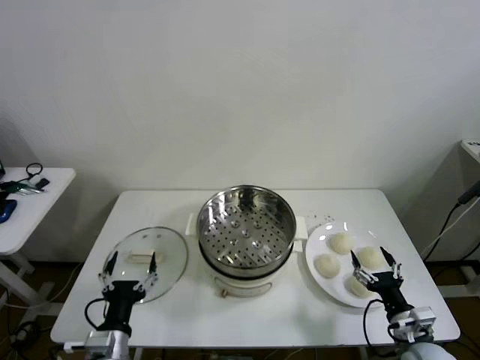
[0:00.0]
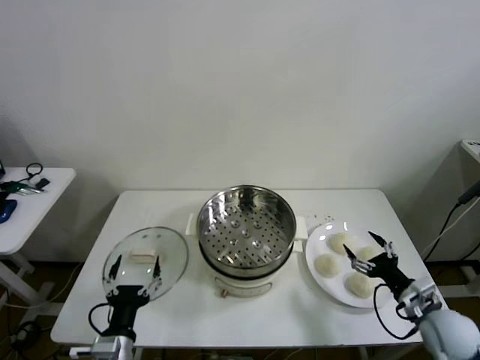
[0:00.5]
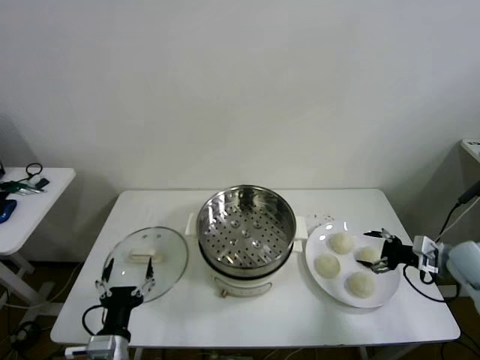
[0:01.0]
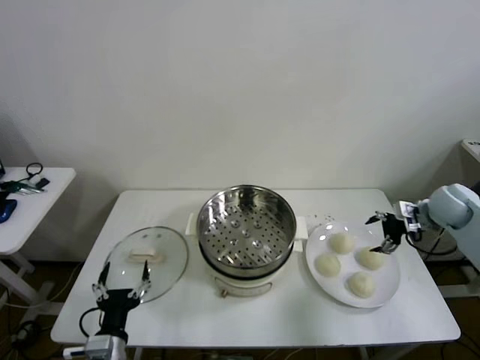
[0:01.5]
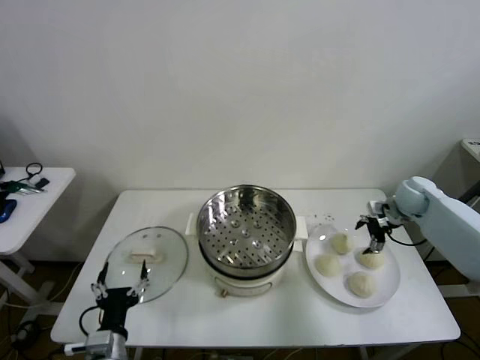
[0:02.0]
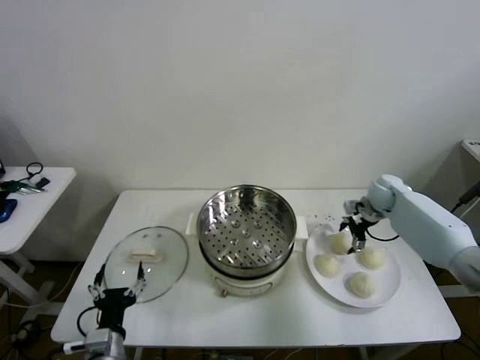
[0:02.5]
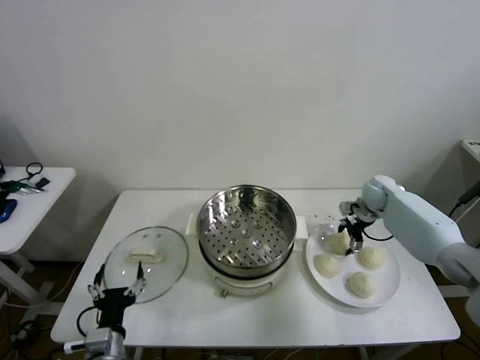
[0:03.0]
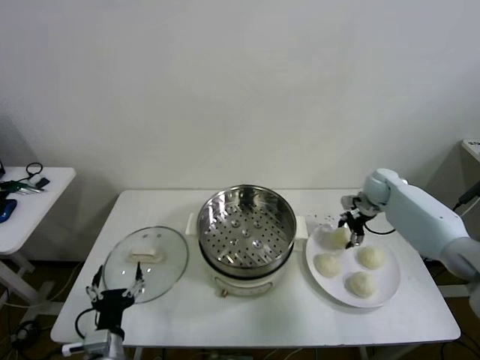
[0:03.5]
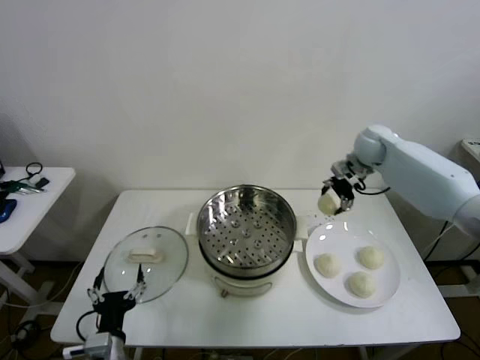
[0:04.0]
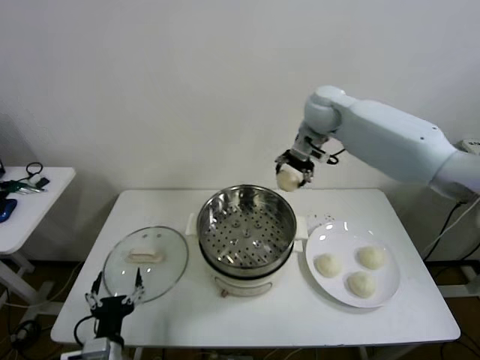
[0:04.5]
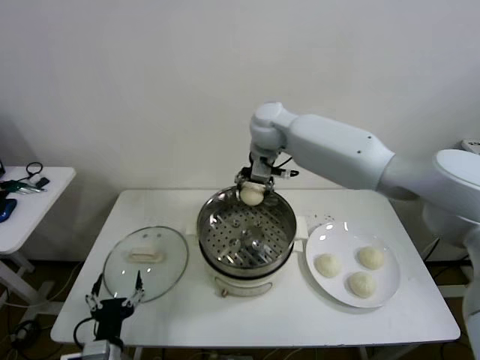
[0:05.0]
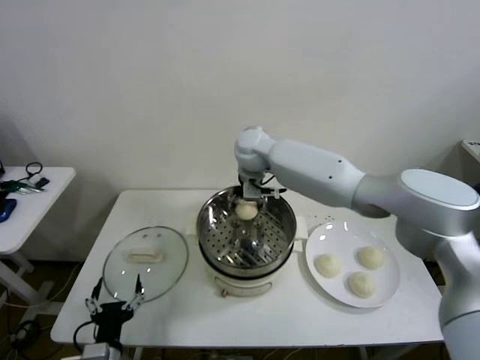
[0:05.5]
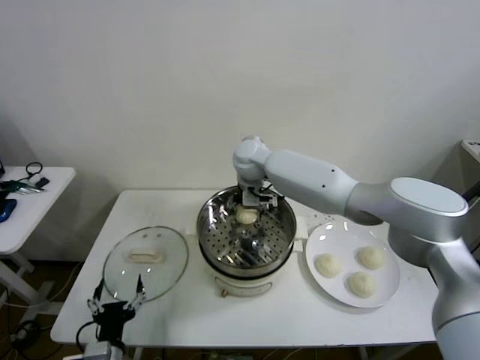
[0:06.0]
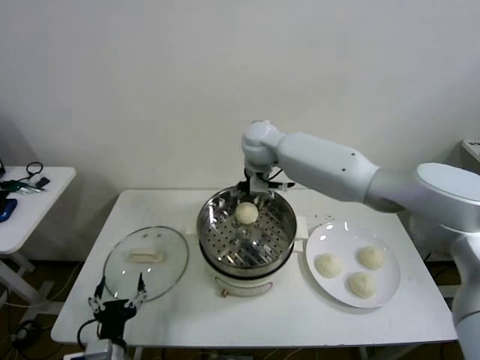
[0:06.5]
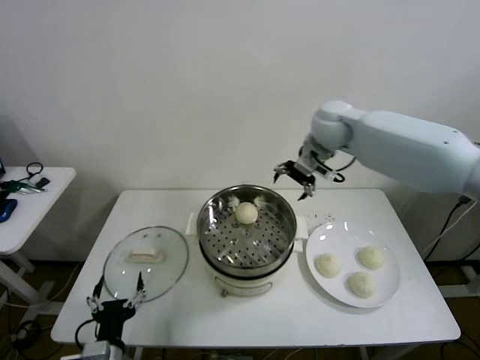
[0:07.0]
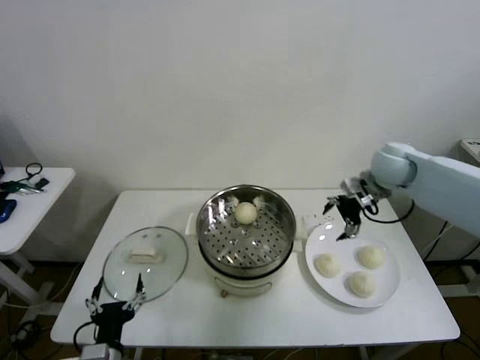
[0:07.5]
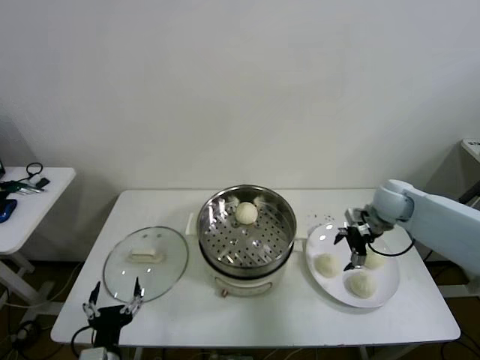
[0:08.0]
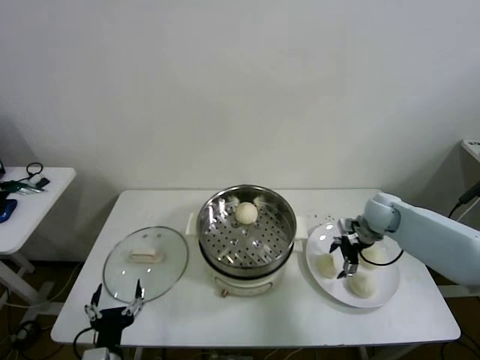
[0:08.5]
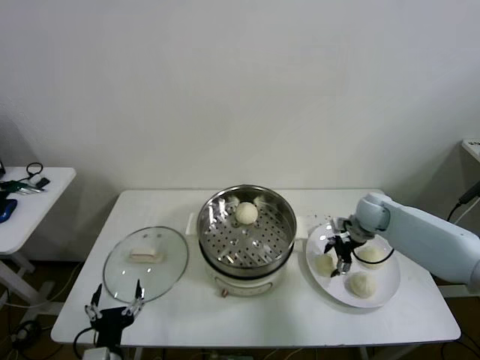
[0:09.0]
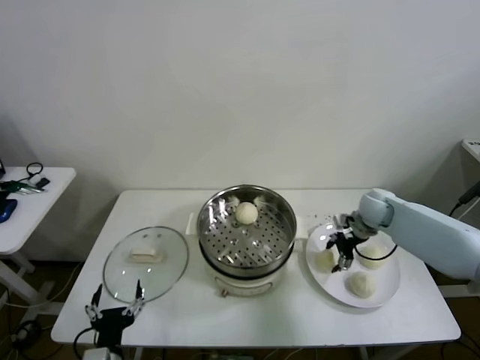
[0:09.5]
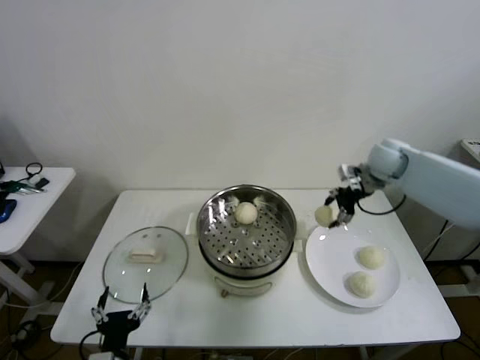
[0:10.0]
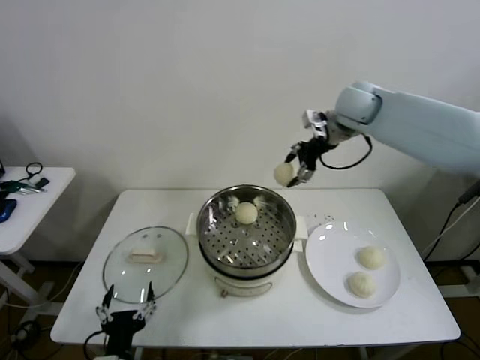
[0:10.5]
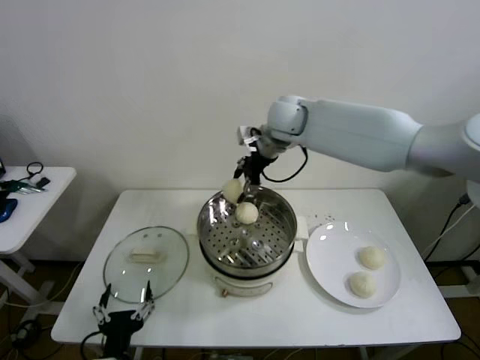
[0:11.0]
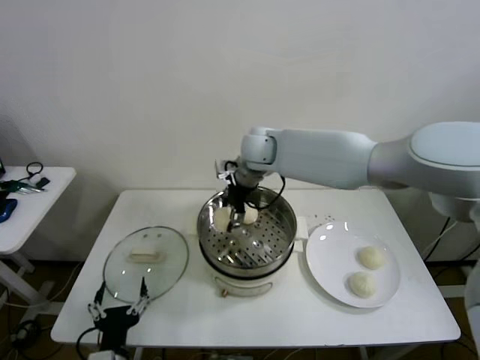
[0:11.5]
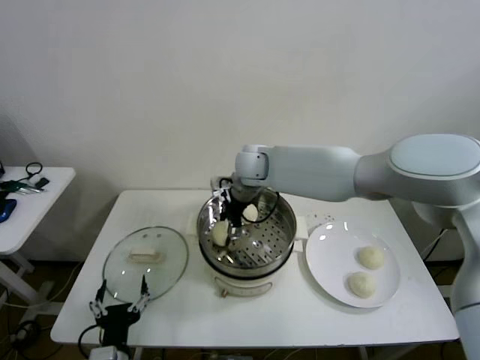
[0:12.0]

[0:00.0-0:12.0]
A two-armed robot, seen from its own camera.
Step, 0:00.0 to 0:03.0: Grasp the baozi in the plate with right gripper.
Step, 0:03.5 to 0:05.5: Place the baozi on the steamer with right gripper.
Step, 0:06.5 to 0:09.0: Grasp the baozi in the plate with right gripper.
0:02.0 to 0:04.0: The right gripper is displaced upward, to the left and forward by about 20 cm.
0:04.0 to 0:06.0: The right gripper travels to the left by approximately 30 cm.
0:06.0 to 0:08.0: The right gripper travels to the right by some 35 cm.
0:08.0 to 0:10.0: The right gripper goes approximately 15 cm upward and forward.
0:10.0 to 0:12.0: The right gripper is displaced to the left by approximately 30 cm.

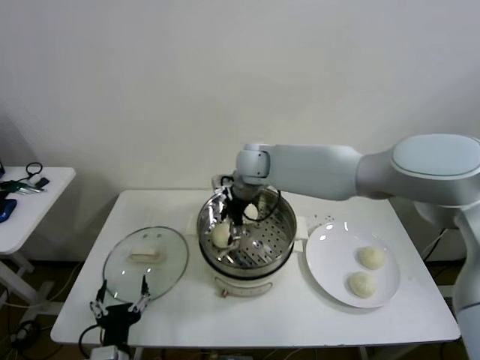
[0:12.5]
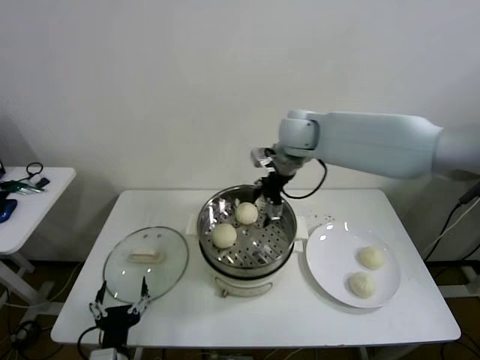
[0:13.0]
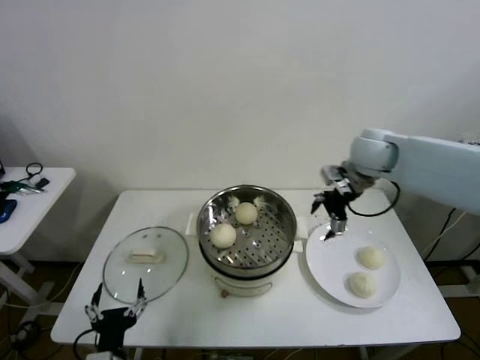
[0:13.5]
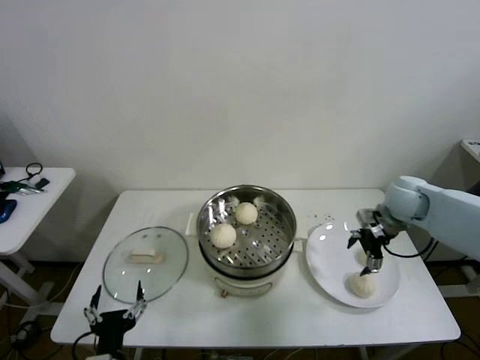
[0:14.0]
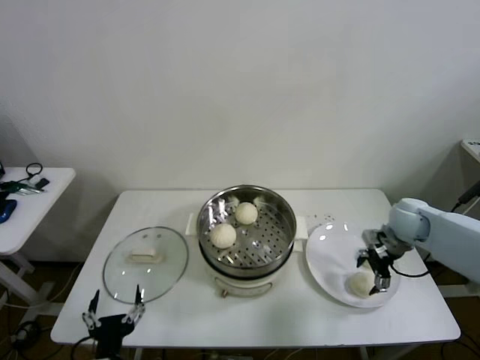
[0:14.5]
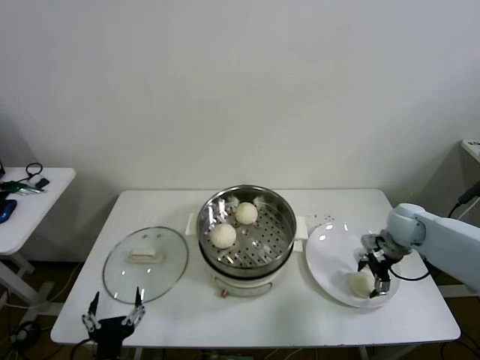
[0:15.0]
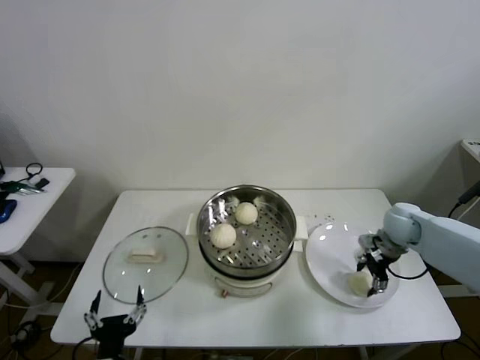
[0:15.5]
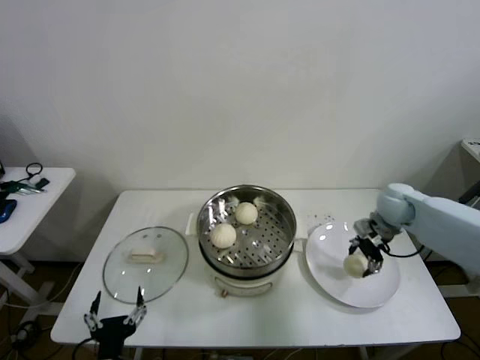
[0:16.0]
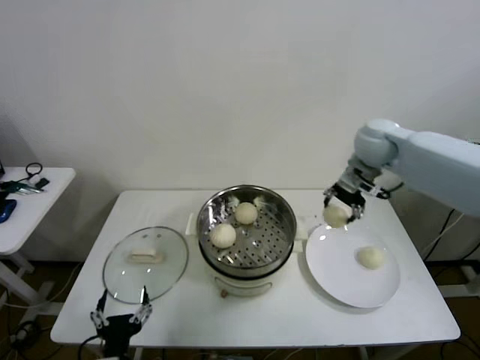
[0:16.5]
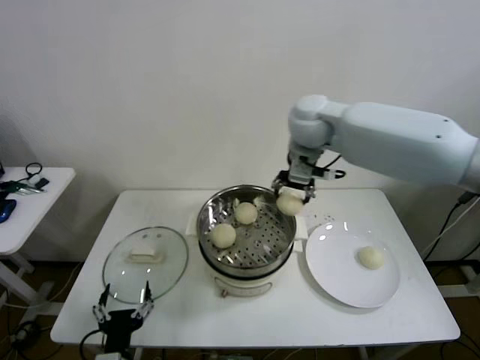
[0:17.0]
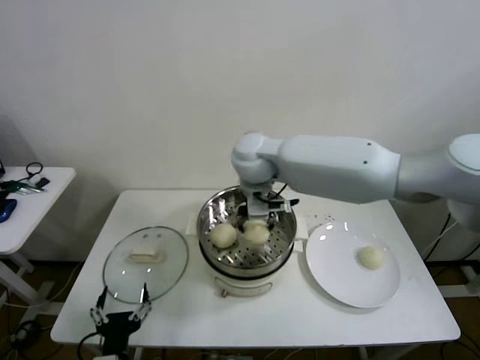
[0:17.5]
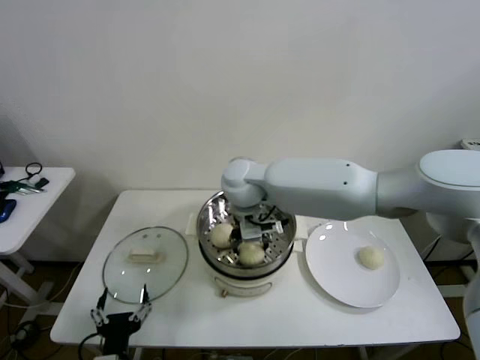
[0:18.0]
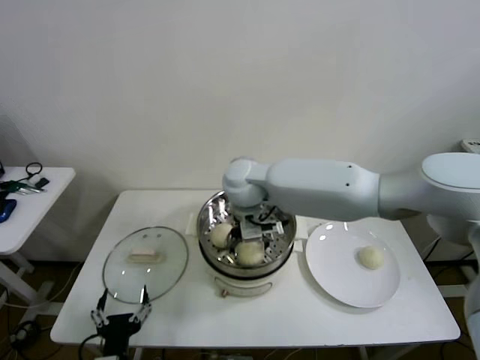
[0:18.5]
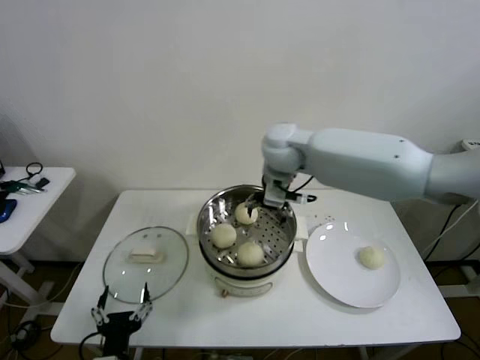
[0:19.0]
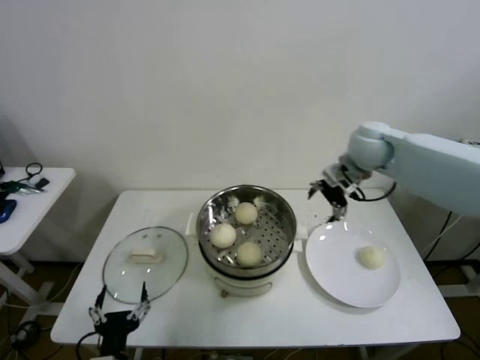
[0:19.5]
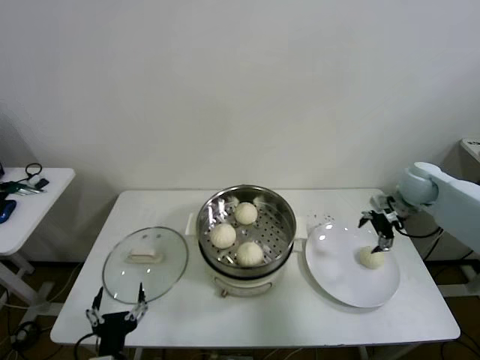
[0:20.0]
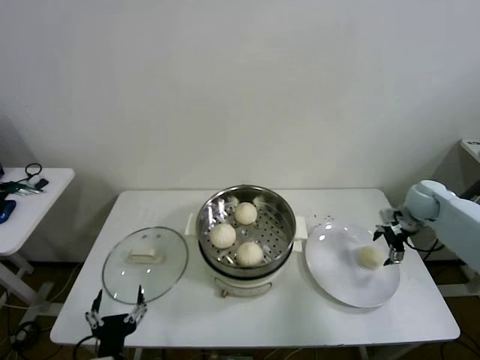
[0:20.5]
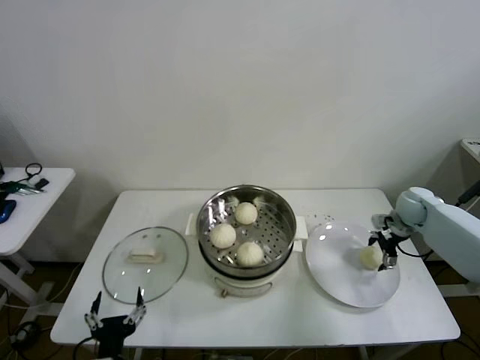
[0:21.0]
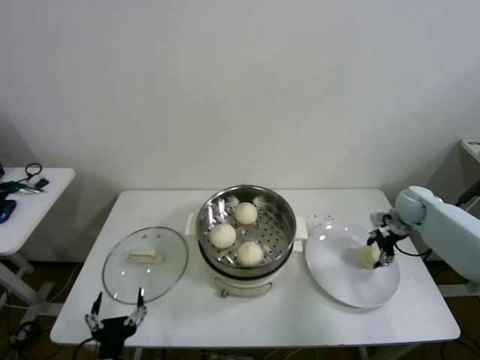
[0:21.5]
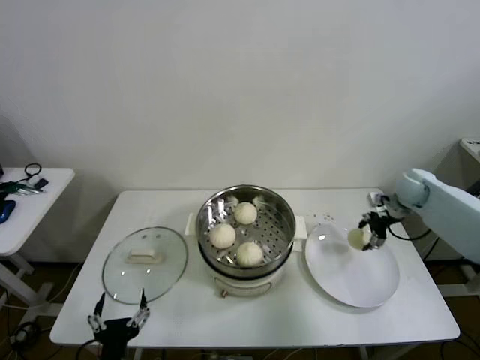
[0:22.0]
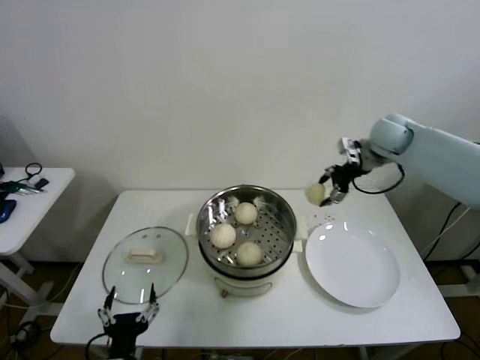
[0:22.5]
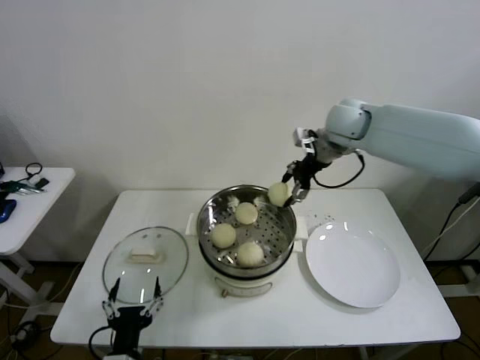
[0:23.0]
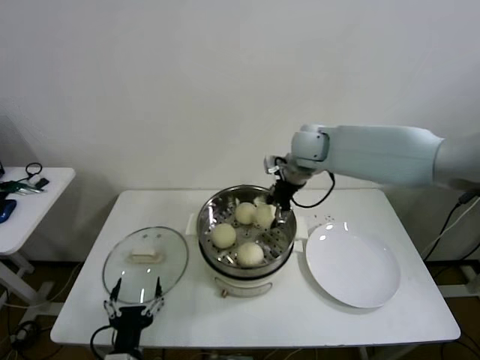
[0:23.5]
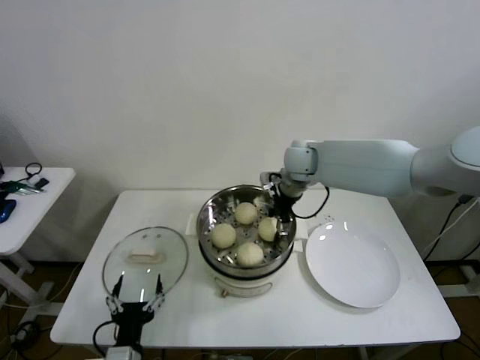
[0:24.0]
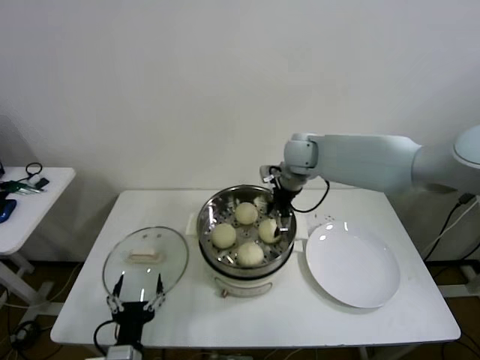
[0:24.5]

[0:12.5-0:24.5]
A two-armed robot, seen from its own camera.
Step, 0:12.5 to 0:15.5: Grasp the baozi in the plate with right gripper.
Step, 0:16.0 to 0:18.0: Place the baozi on the steamer with right gripper.
Step, 0:19.0 to 0:21.0: Grasp the baozi in the plate with right gripper.
Step, 0:21.5 to 0:24.0: Place the baozi on the steamer with right gripper.
0:12.5 to 0:14.5: The right gripper travels to the right by roughly 35 cm.
0:14.5 to 0:16.5: The right gripper is displaced upward, to the left and forward by some 25 cm.
0:16.5 to 0:18.5: The right gripper heads to the left, covering approximately 25 cm.
0:18.5 to 0:20.5: The right gripper is displaced to the right by some 50 cm.
0:20.5 to 0:22.5: The right gripper goes some 20 cm upward and to the left.
0:22.5 to 0:24.5: The right gripper moves to the left, roughly 20 cm.

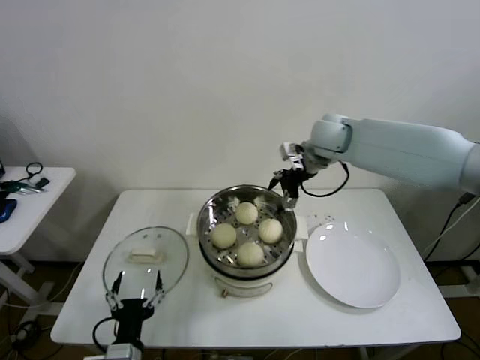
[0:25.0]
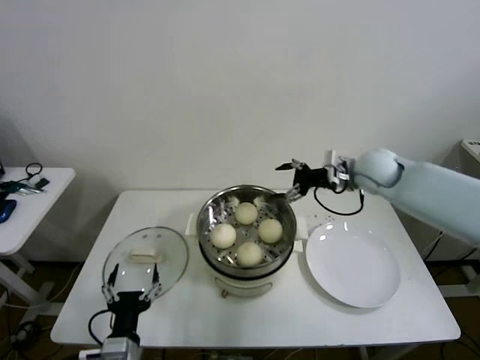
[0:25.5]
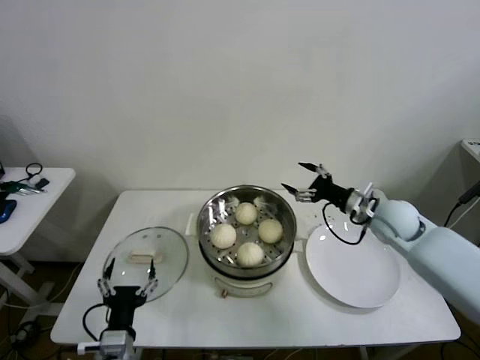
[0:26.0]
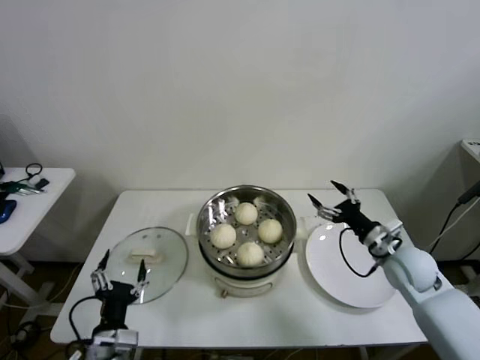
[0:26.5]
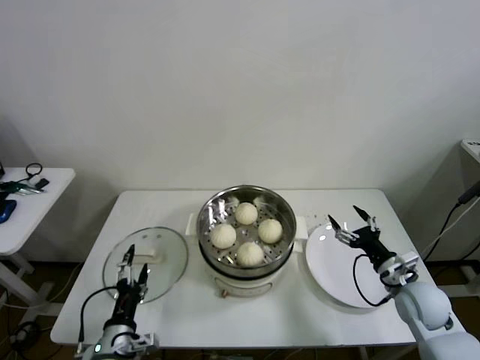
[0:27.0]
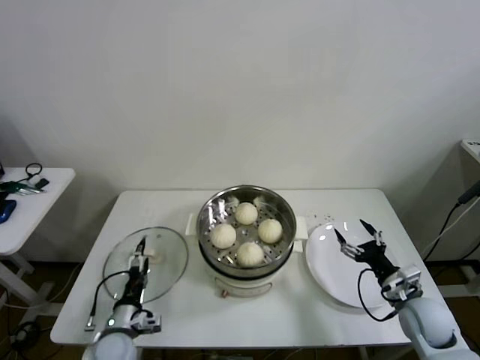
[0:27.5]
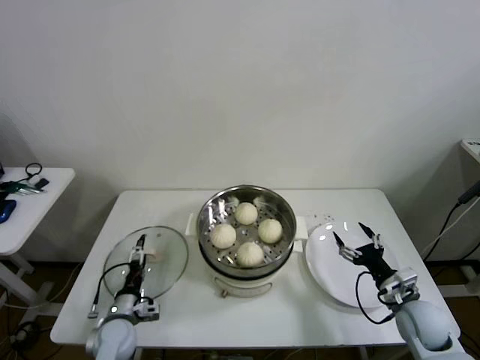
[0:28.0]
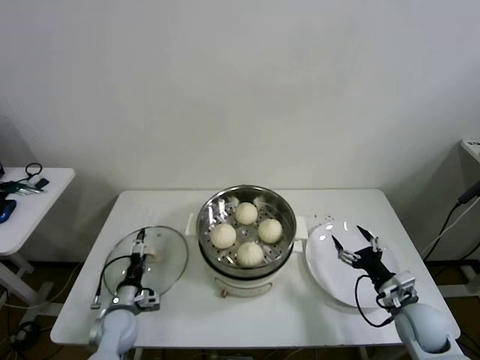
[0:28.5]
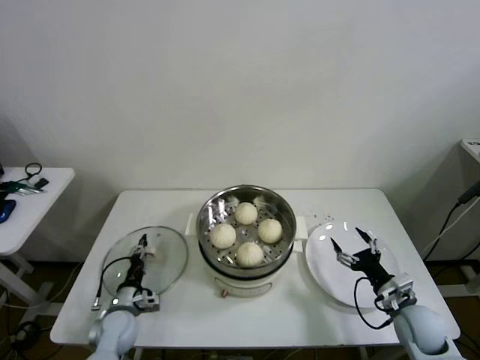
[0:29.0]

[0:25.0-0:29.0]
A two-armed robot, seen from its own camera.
0:25.0 to 0:27.0: The right gripper heads downward, backward and to the right, covering approximately 40 cm; the left gripper moves roughly 5 cm.
0:27.0 to 0:29.0: The right gripper changes place by some 5 cm, while the left gripper is displaced forward and downward by some 15 cm, and closes its fingers.
